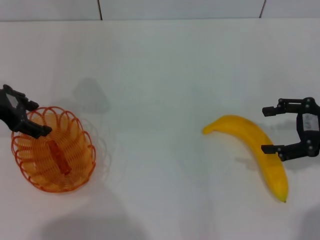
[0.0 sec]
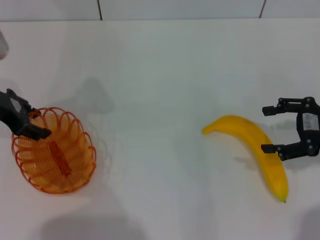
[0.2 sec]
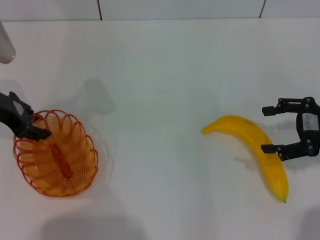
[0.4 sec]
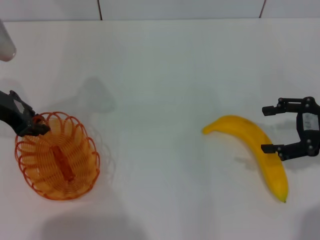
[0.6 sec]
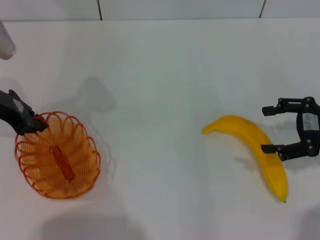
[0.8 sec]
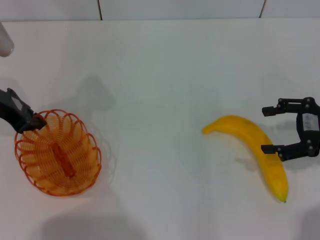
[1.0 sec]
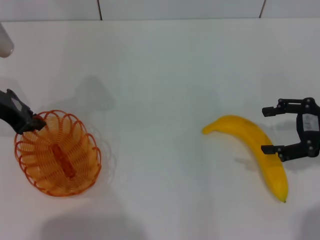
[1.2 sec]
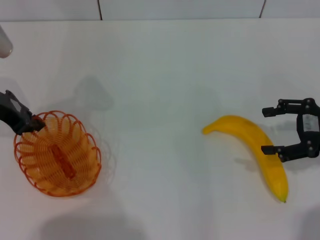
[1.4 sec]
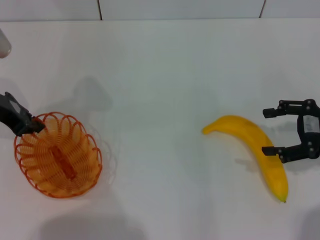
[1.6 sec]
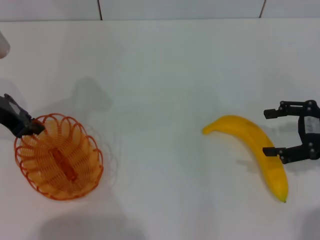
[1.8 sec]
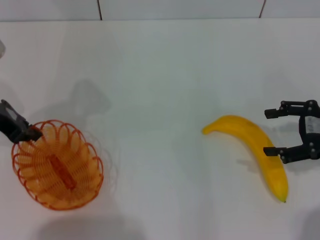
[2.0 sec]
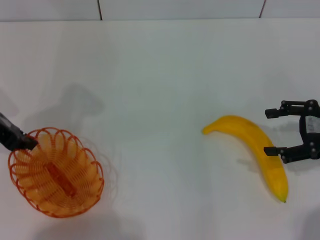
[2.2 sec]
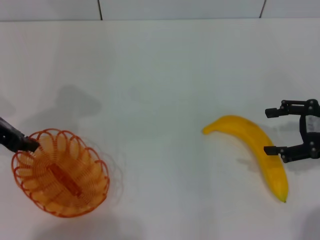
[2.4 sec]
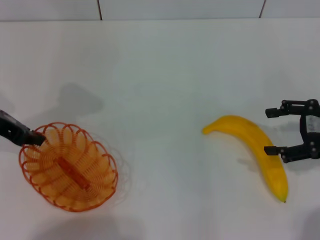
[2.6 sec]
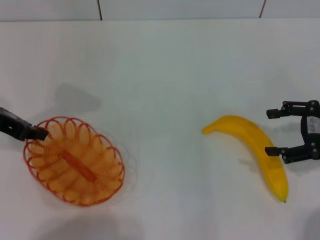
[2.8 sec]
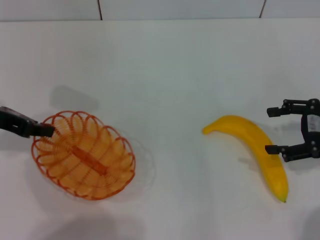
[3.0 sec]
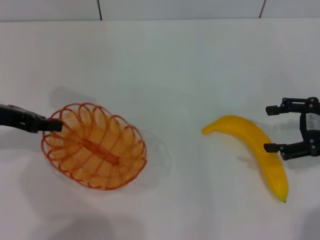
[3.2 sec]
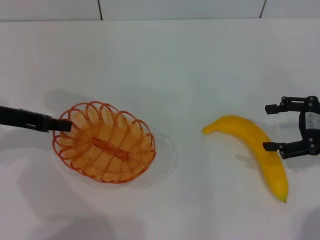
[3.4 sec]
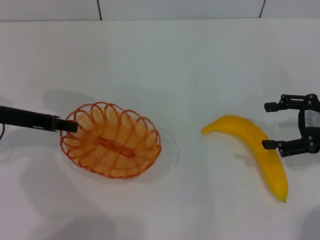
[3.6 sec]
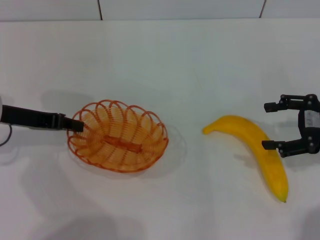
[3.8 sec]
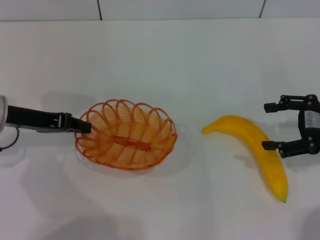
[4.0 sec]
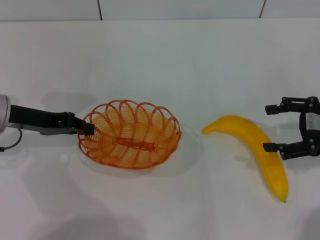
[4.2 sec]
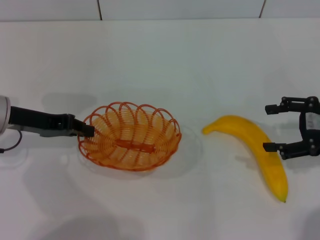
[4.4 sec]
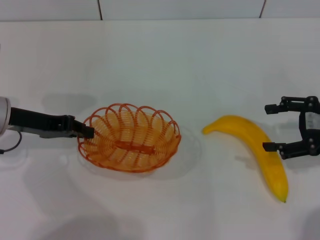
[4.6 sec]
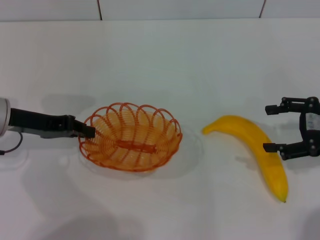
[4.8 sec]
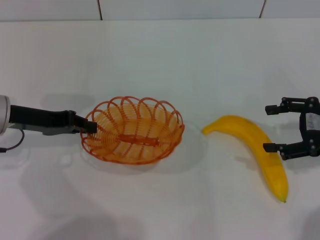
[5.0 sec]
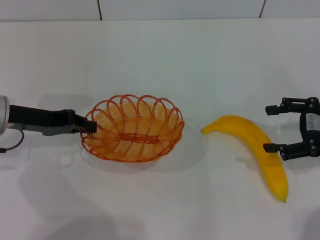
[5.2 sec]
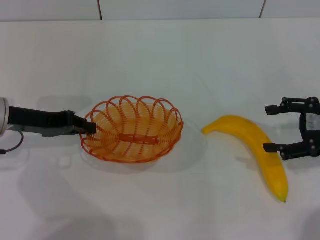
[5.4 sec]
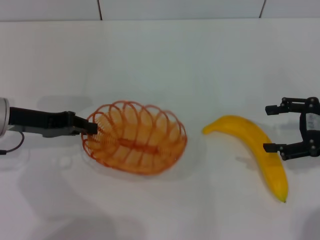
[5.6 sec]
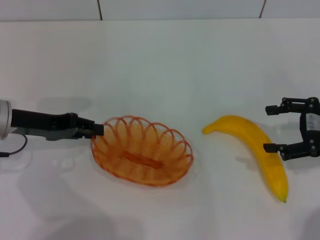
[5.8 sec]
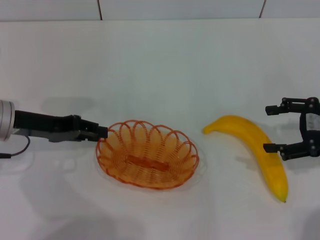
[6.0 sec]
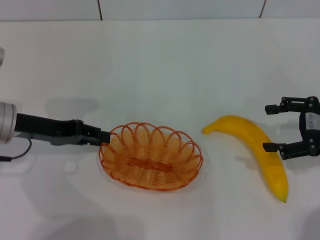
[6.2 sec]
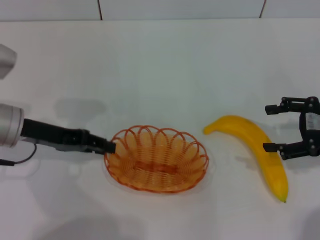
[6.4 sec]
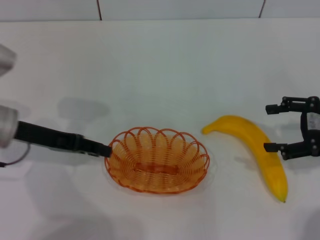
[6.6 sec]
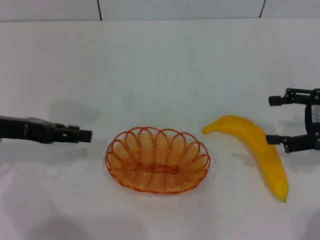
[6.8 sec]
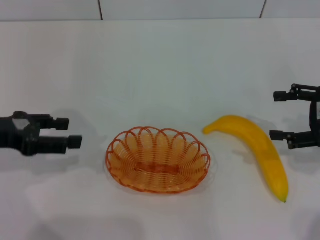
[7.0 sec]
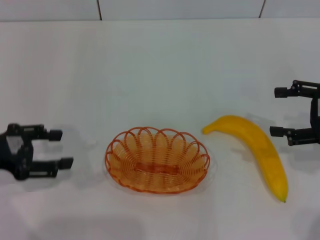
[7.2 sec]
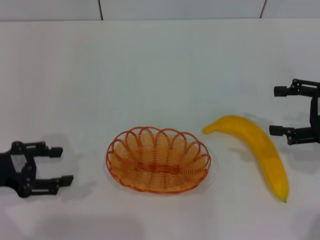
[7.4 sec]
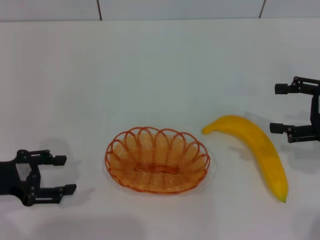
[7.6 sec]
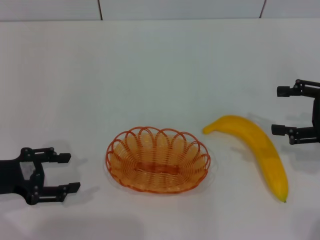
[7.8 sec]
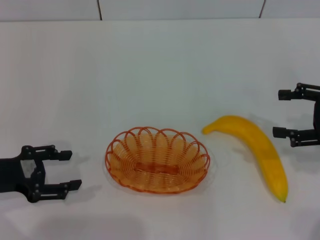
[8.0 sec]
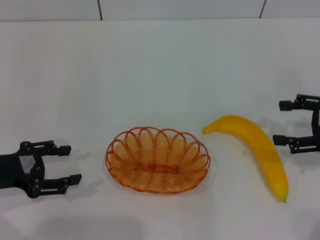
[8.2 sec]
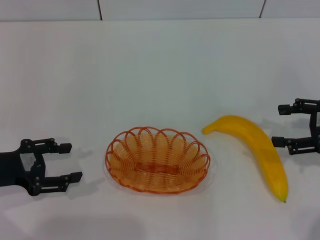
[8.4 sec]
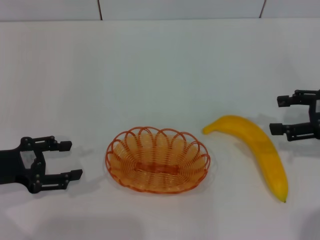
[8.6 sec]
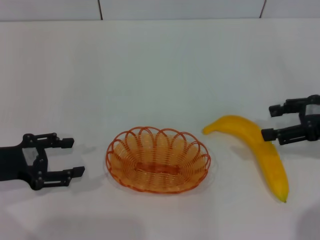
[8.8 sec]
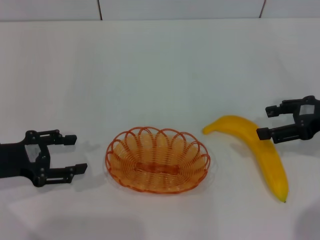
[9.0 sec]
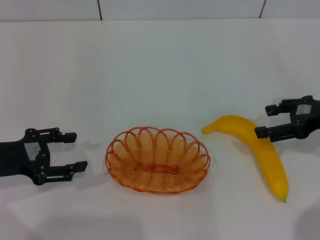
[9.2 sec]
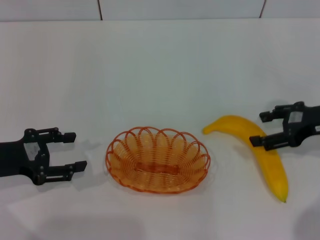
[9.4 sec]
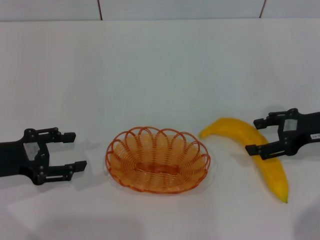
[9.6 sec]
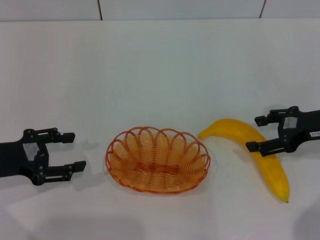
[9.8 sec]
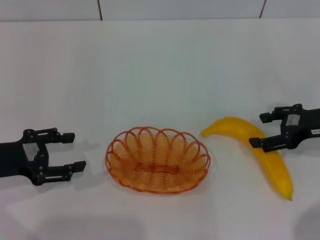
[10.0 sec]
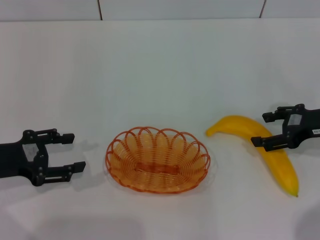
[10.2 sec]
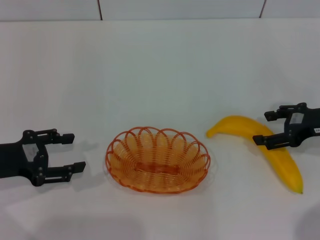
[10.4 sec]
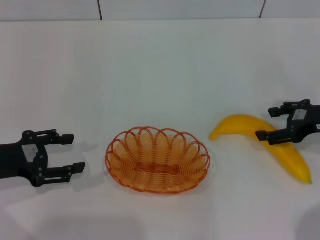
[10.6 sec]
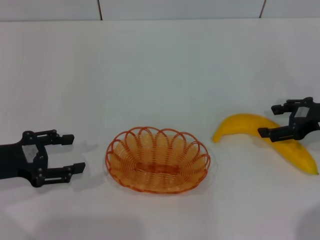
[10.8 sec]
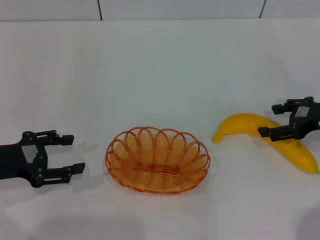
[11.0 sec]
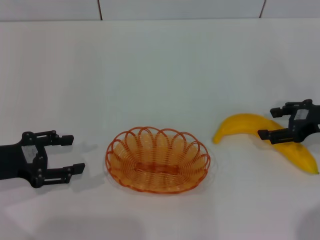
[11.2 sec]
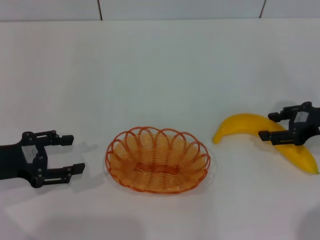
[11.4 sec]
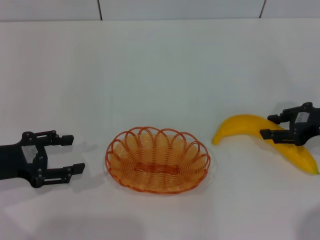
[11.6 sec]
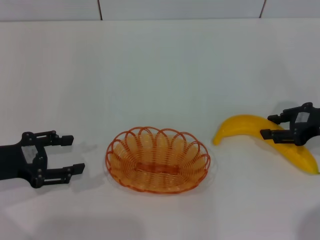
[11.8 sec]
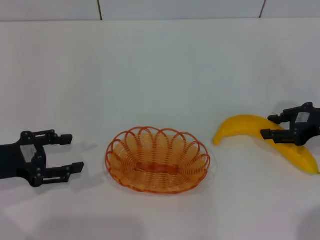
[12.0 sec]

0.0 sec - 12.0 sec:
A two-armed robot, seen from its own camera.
Step, 0.0 sec - 2.8 sec: Pick up the basket with the left gripper.
Step, 3.0 sec - 6.6 sec: Place the basket in the center of view with the left gripper.
0.0 sec - 1.6 sec: The left gripper closes its fingers.
3.0 sec - 4.4 sec: The left gripper ends up about 5 cm from where it was.
4.4 sec - 6.0 sec: The grippers make only small movements.
6.0 sec - 7.6 sec: The left gripper moves backward and to the left, approximately 10 cm, and opens its fingers.
9.0 sec - 10.4 sec: There are only small adjustments of the grippers.
10.4 sec - 12.0 sec: The right gripper closes its fingers.

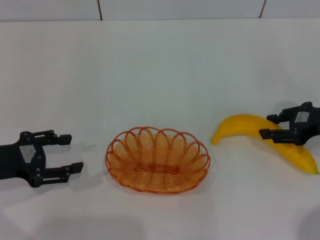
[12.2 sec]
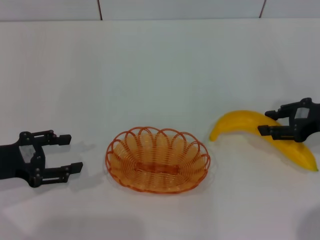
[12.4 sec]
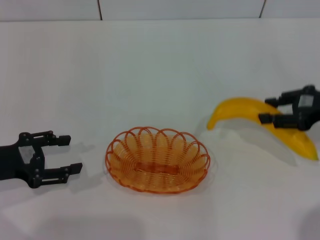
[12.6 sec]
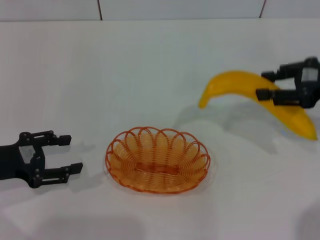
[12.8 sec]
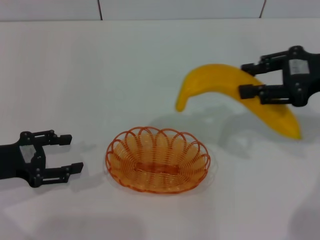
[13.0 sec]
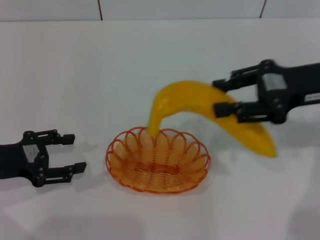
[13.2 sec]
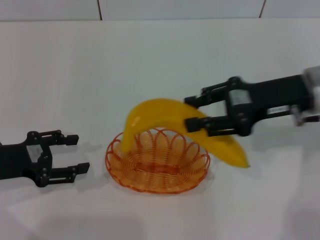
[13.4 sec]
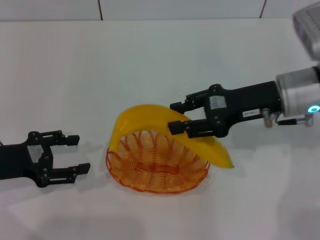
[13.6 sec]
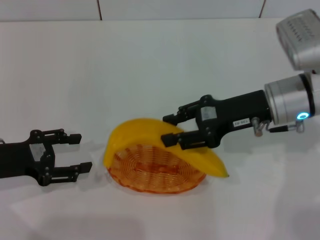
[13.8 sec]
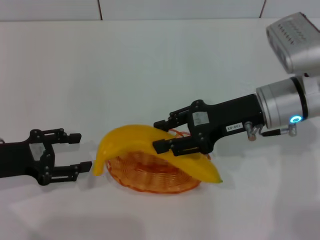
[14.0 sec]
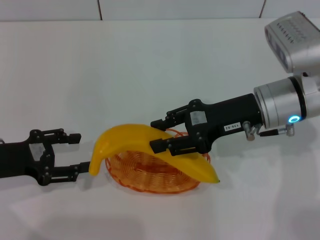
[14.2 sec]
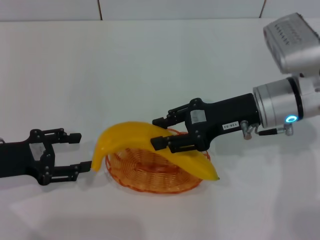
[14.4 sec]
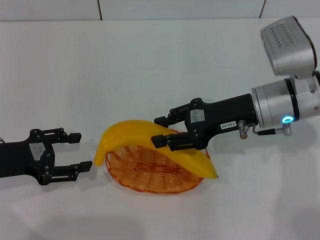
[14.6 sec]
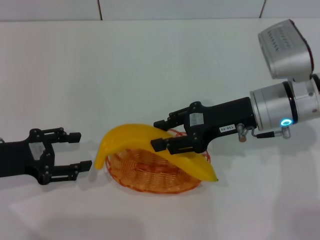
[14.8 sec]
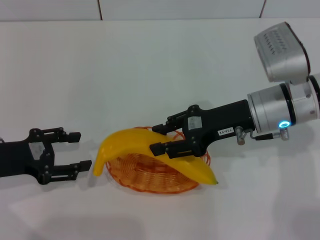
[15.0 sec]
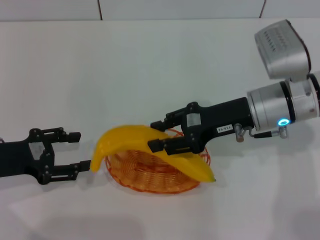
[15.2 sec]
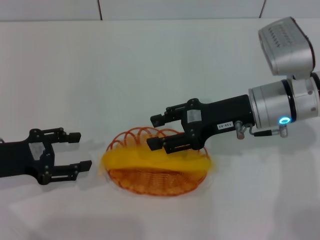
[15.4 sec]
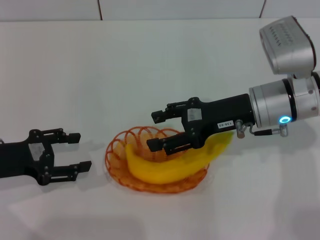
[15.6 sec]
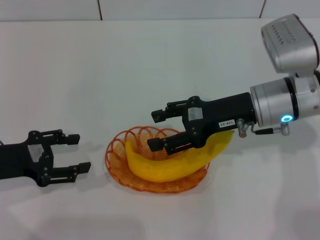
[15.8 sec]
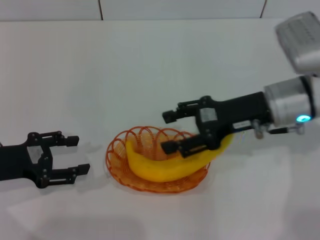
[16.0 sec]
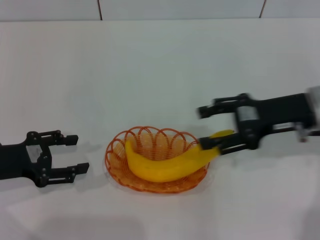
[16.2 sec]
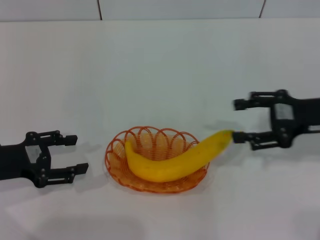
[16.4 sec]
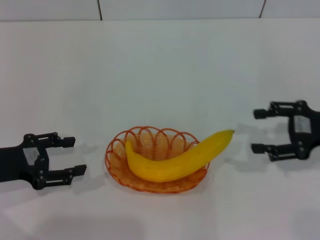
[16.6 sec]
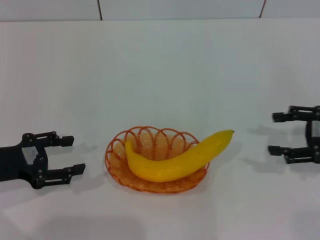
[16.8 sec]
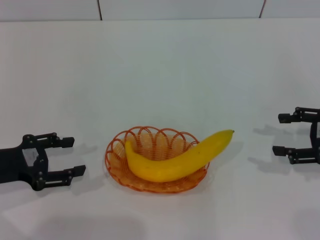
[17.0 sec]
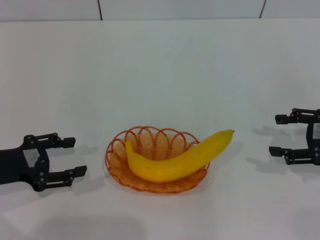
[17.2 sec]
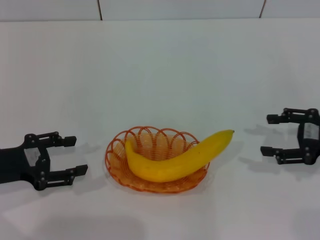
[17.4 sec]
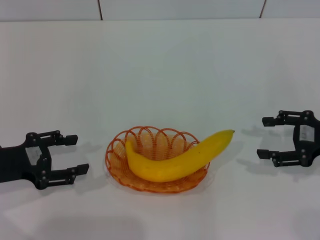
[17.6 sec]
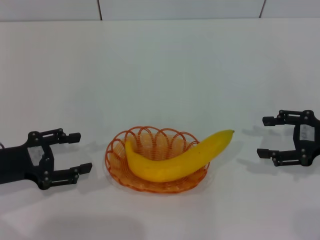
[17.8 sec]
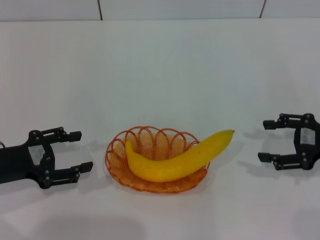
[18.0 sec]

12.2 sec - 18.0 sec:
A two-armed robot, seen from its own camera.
Step, 12.8 sec - 16.0 sec: Place the banana into the basket with the right gripper.
12.2 sec - 13.6 sec: The right gripper travels to the left by about 10 cm.
13.6 sec - 15.0 sec: The grippers stay close to where they were, moving slightly.
15.0 sec - 16.6 sec: The right gripper shifts about 15 cm to the right, and opens.
16.6 sec - 18.0 sec: There are only small adjustments of the grippers.
